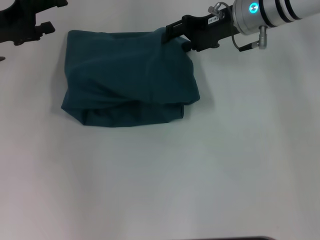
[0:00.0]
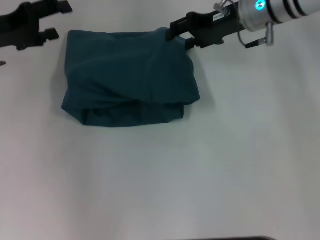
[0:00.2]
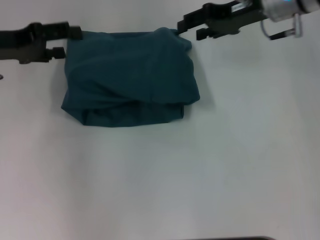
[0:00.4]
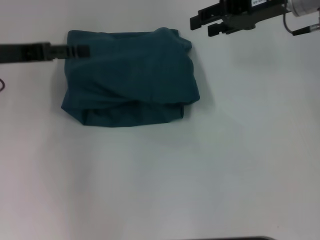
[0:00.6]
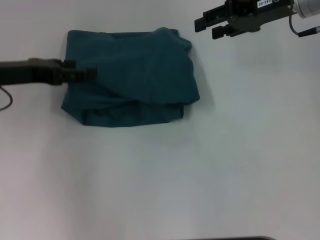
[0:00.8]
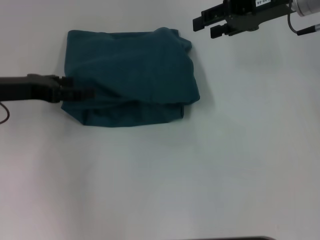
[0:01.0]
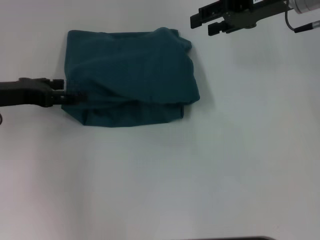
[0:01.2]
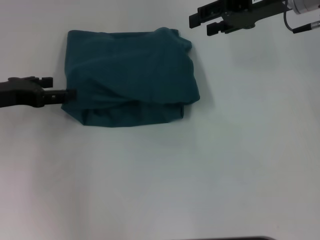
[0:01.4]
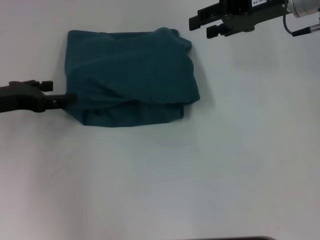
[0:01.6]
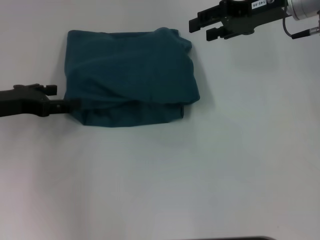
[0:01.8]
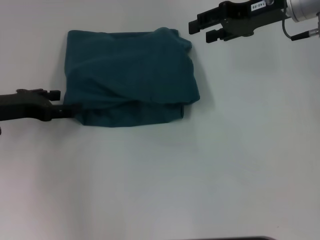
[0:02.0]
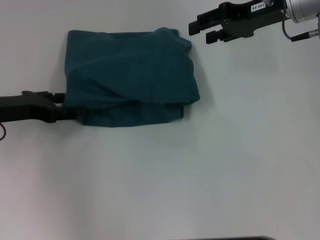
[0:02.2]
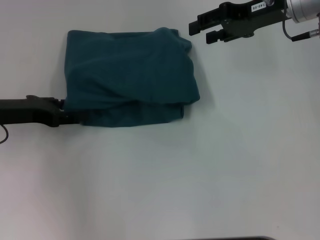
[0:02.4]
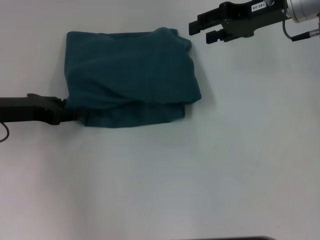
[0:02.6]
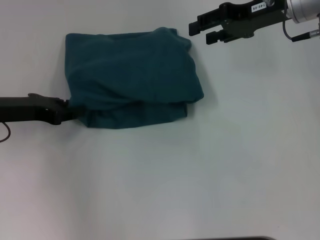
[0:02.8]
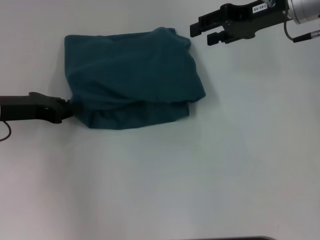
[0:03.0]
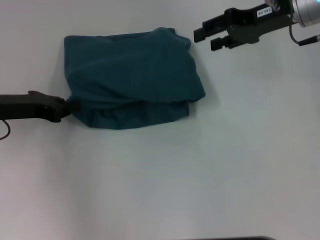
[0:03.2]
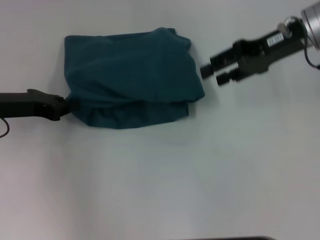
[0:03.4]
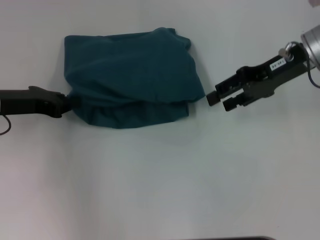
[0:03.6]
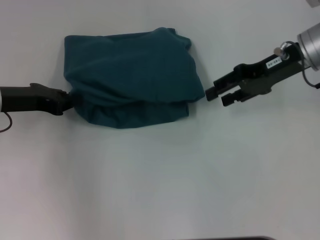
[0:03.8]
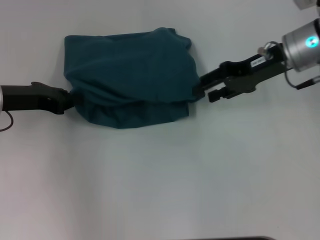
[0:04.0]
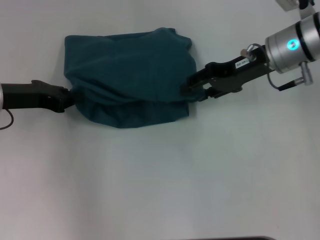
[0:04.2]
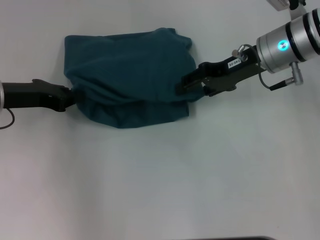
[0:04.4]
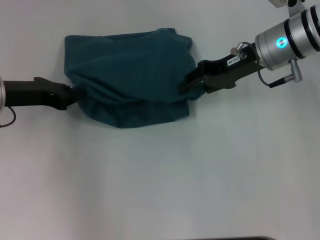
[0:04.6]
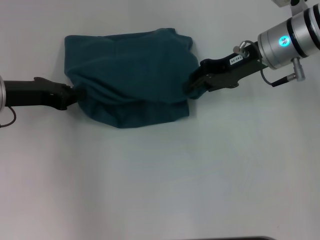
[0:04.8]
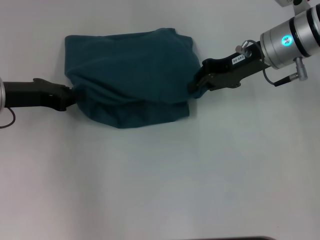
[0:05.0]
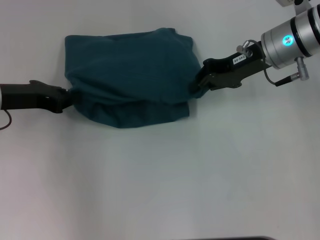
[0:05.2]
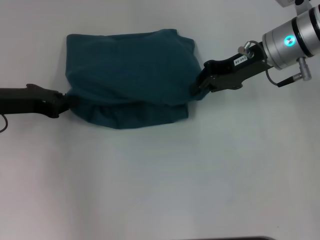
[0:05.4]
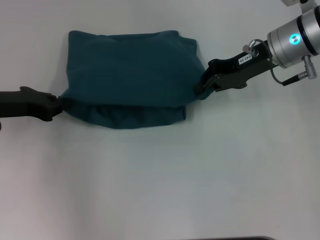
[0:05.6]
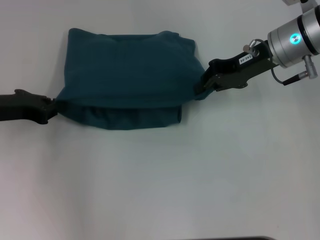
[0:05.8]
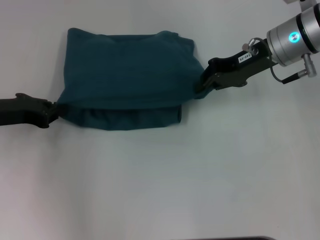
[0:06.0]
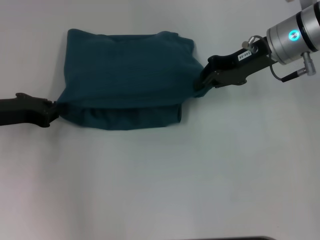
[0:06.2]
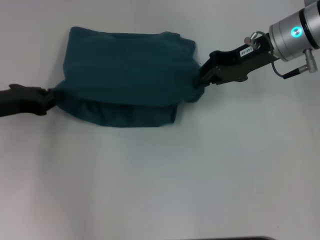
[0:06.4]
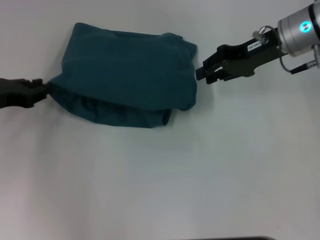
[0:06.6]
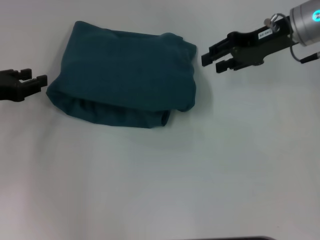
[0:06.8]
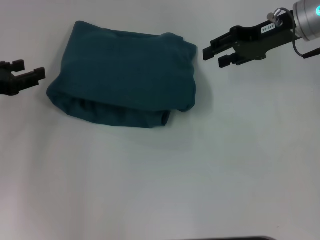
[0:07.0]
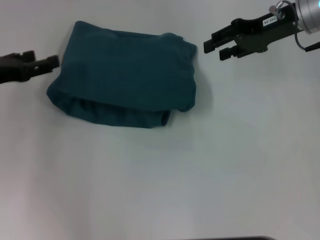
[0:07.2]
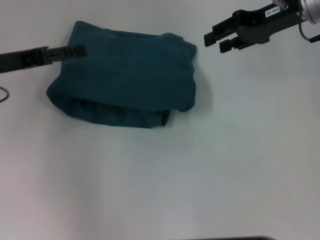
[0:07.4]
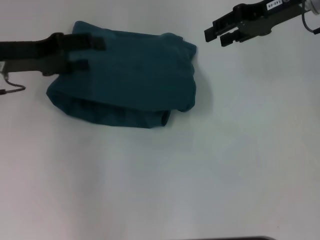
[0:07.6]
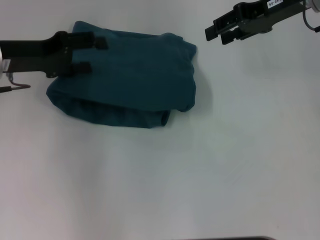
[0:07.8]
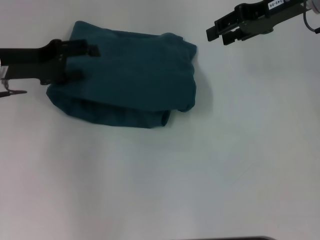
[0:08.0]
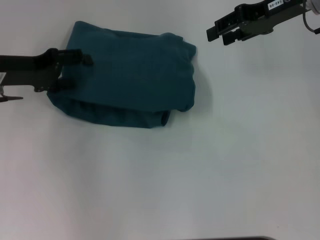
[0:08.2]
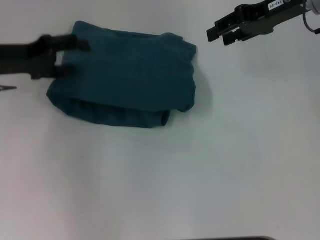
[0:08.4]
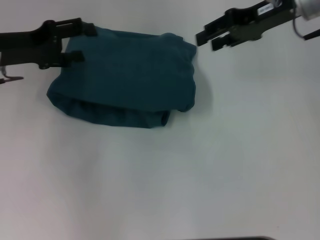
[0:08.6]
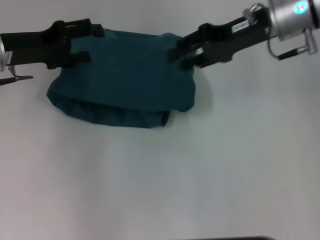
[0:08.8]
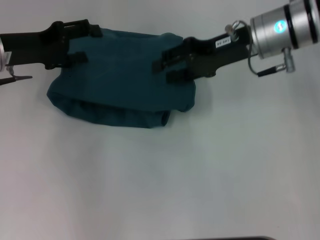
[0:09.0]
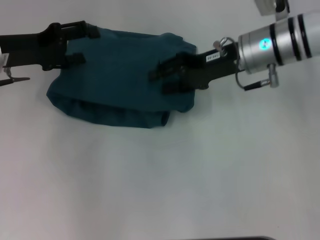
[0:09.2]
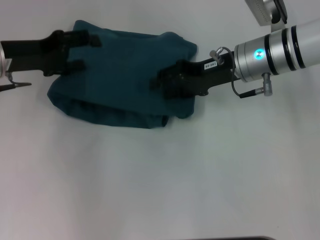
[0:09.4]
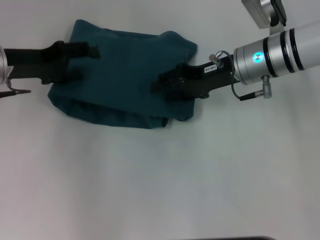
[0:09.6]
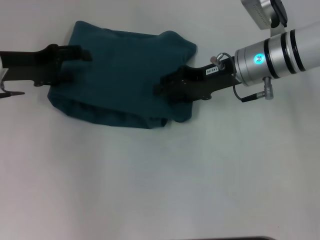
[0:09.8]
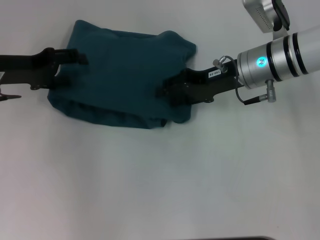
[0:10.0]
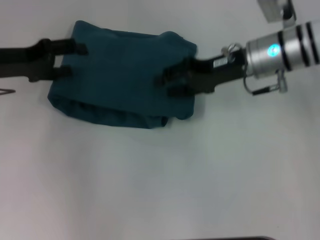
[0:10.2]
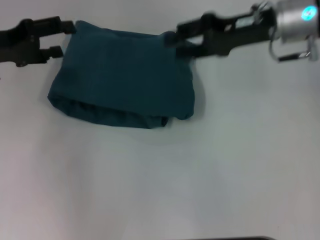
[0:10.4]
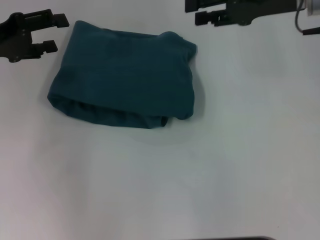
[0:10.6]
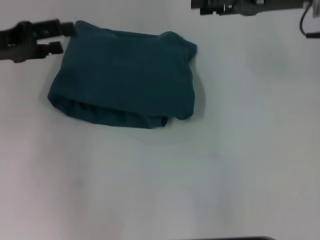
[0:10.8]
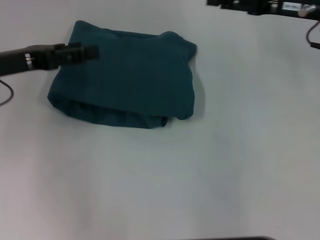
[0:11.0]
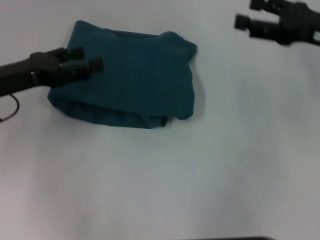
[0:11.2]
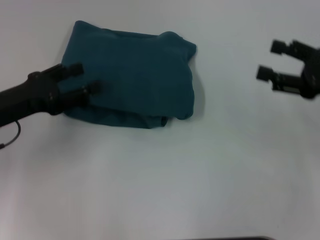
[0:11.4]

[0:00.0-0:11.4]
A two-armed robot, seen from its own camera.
0:00.0 to 0:01.4: The left gripper moves backward, some 5 cm, while the right gripper heads to the right, covering approximately 5 cm.
0:01.4 to 0:02.8: The left gripper closes.
0:02.8 to 0:04.2: The left gripper closes its fingers. The right gripper ends up about 5 cm from where it was.
0:04.2 to 0:05.6: The right gripper closes up.
0:05.6 to 0:07.2: The left gripper opens up; the right gripper moves some 5 cm, and opens its fingers.
0:07.2 to 0:08.6: The left gripper travels forward by approximately 5 cm.
0:08.6 to 0:10.0: The right gripper shifts roughly 10 cm downward and to the left.
0:10.0 to 0:11.4: The right gripper is displaced to the right and backward by roughly 20 cm, and opens its fingers. The left gripper is displaced backward by approximately 10 cm.

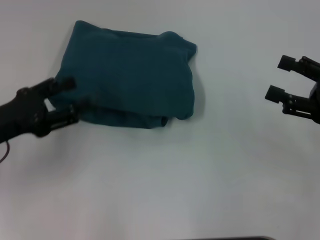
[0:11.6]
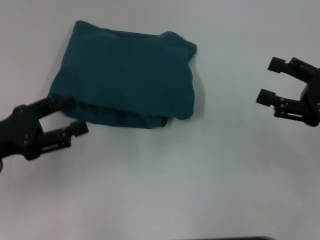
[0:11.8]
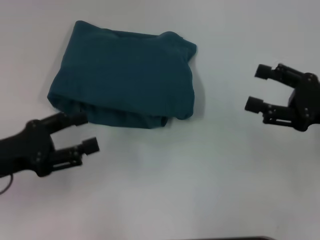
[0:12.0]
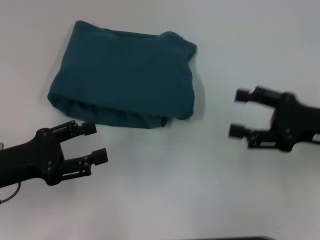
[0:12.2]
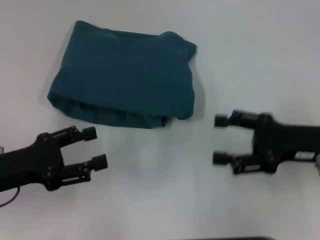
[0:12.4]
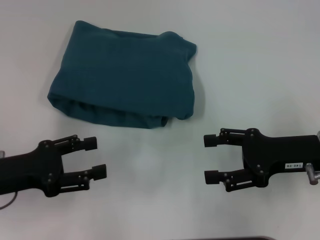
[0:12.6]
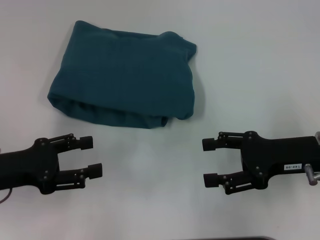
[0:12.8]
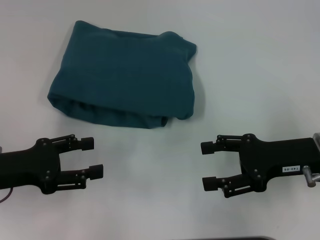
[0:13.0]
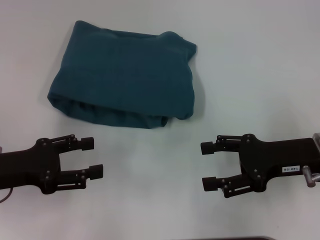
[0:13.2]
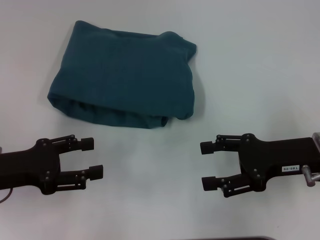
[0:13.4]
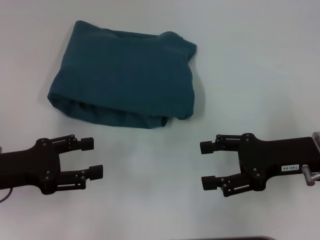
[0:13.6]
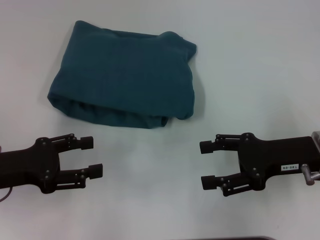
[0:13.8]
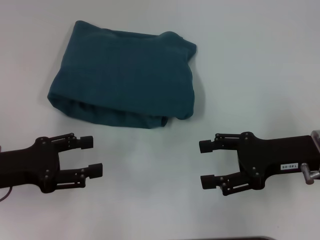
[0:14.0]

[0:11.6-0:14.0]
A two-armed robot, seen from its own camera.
0:11.6 to 0:12.8: The right gripper travels to the left by about 5 cm.
0:12.8 to 0:14.0: The two grippers keep their place.
